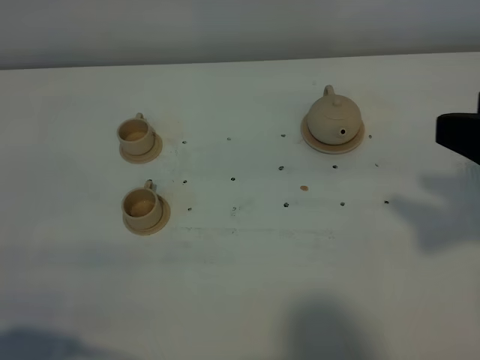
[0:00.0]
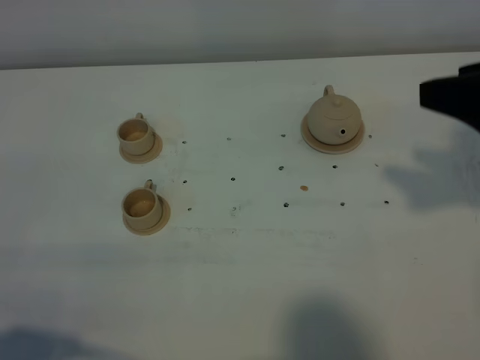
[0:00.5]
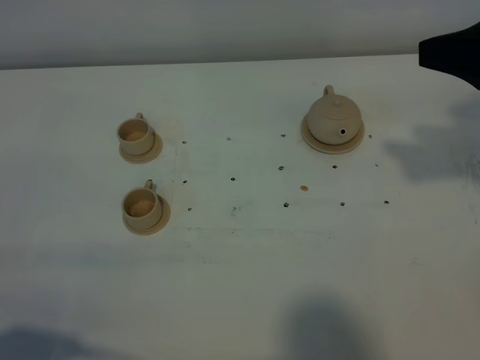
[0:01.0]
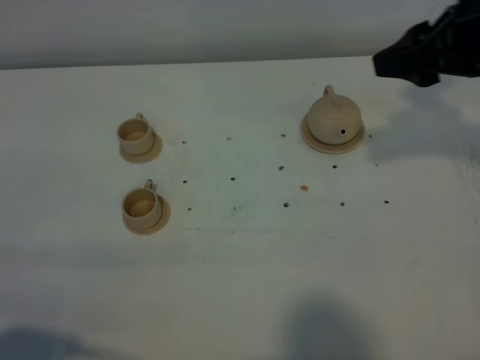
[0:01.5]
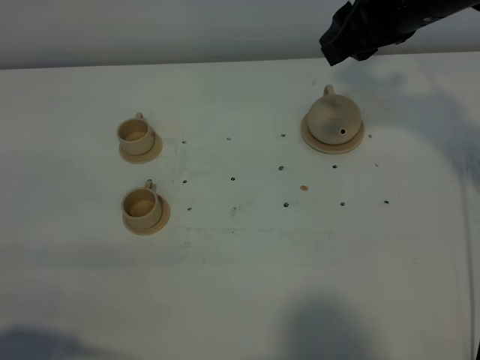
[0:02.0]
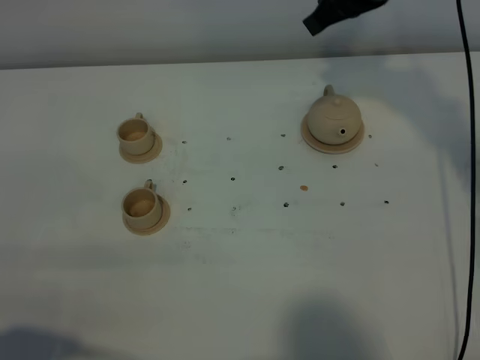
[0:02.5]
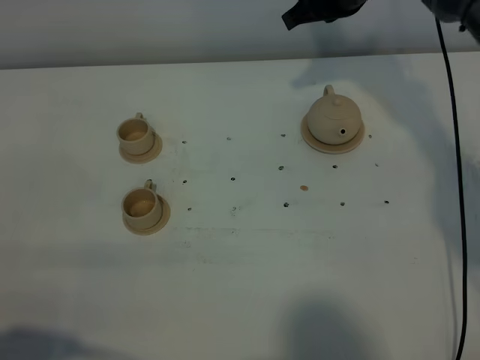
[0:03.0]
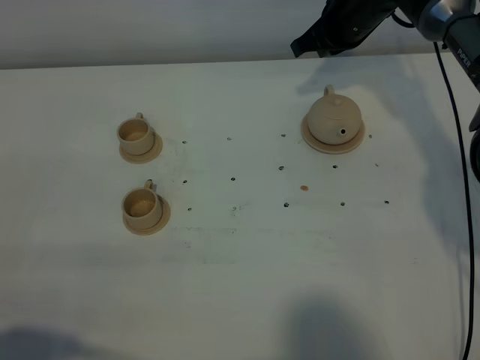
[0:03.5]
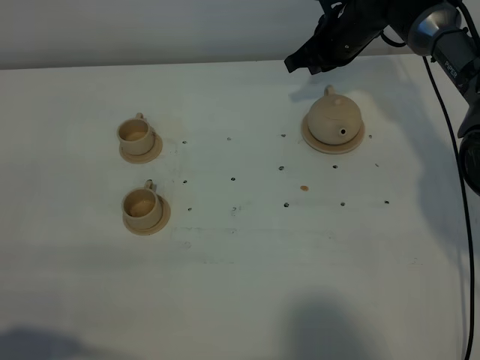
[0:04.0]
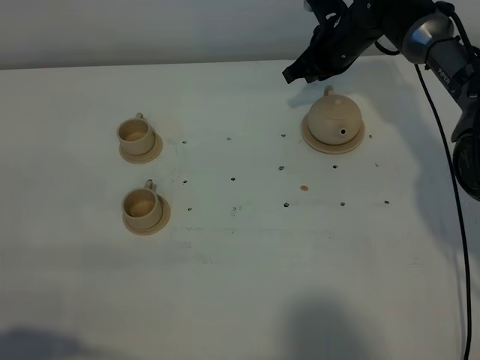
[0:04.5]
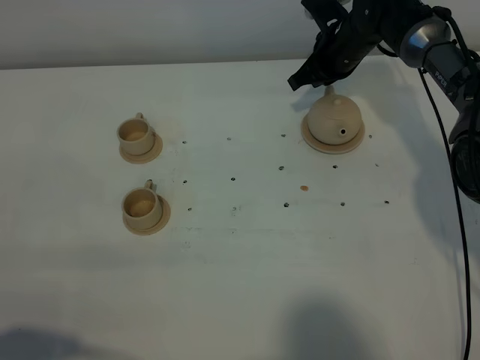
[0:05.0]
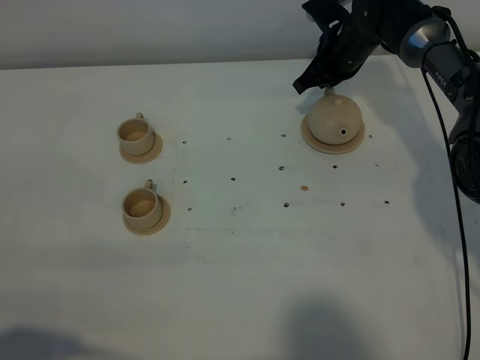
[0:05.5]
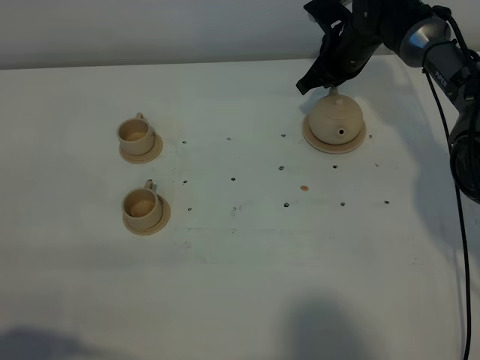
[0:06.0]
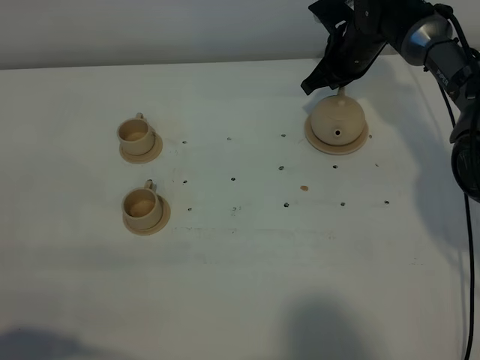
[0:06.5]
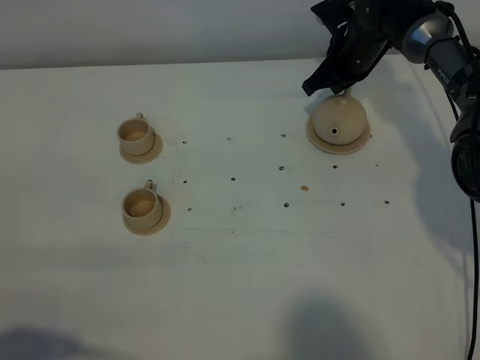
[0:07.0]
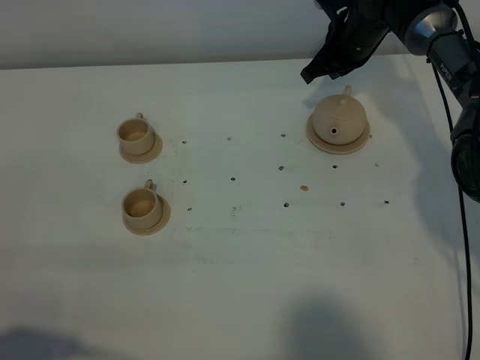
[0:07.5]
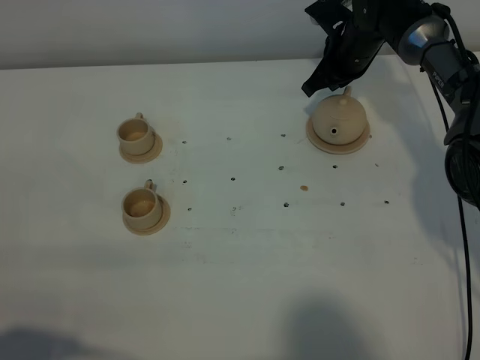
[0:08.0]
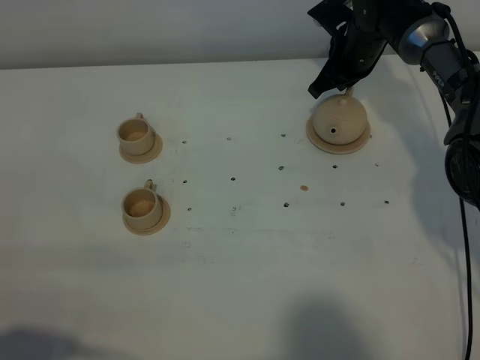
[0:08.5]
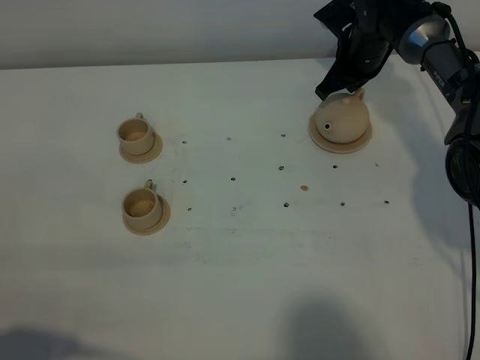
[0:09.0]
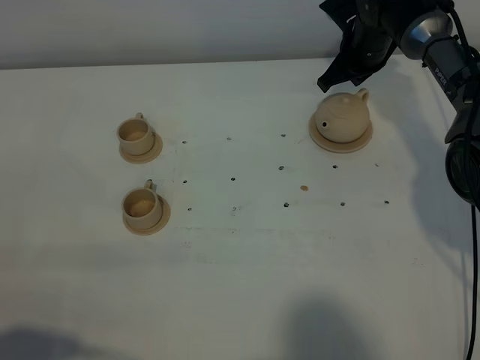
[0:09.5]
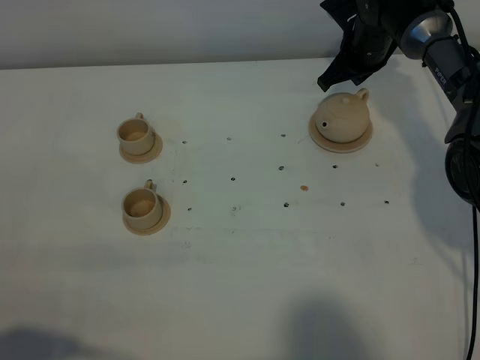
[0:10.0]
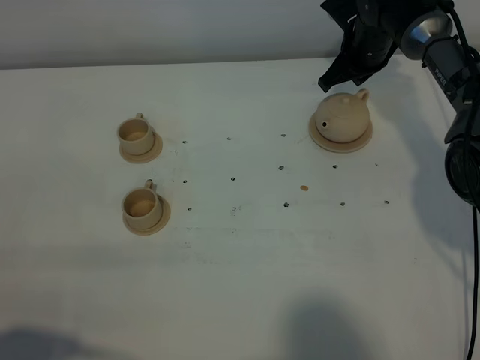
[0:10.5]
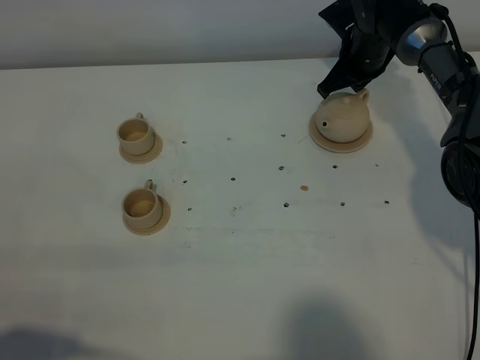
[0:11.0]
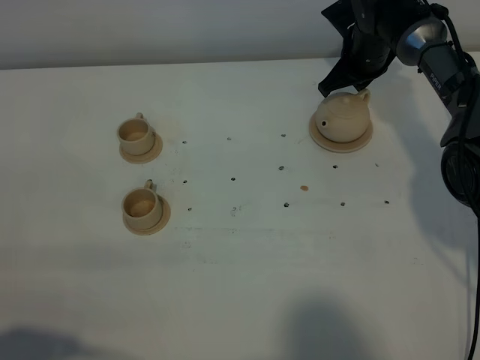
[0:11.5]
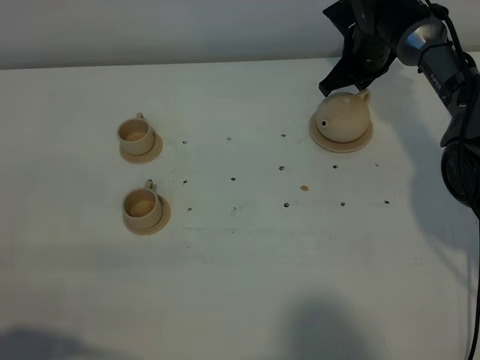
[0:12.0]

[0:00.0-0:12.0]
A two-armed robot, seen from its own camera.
Task of the whole recording: grasp the brown teapot and pour the tea into the two brown teacups one by one, put the brown teapot back in its original place.
0:00.0 to 0:02.0: The right gripper travels forward and to the left by approximately 20 cm.
0:02.0 to 0:04.0: The right gripper moves forward and downward, approximately 25 cm, and closes its fingers.
0:04.0 to 0:08.0: The grippers move only a little.
0:08.0 to 0:10.0: The grippers make only small movements.
0:10.0 to 0:12.0: The two grippers keep their place.

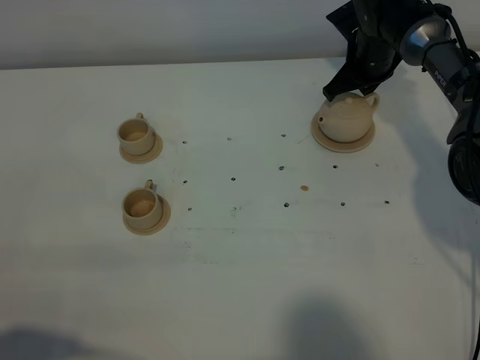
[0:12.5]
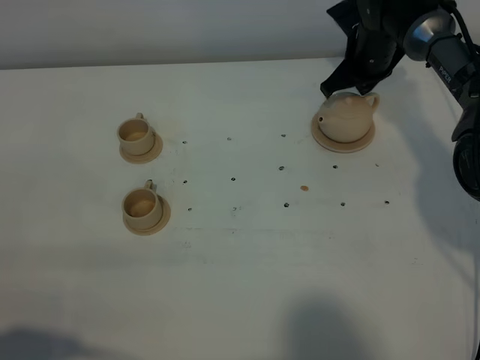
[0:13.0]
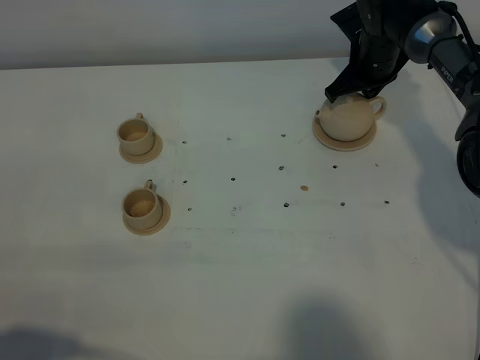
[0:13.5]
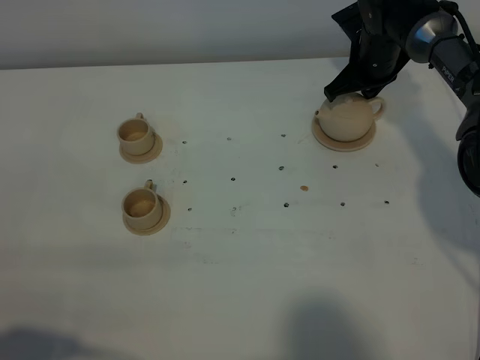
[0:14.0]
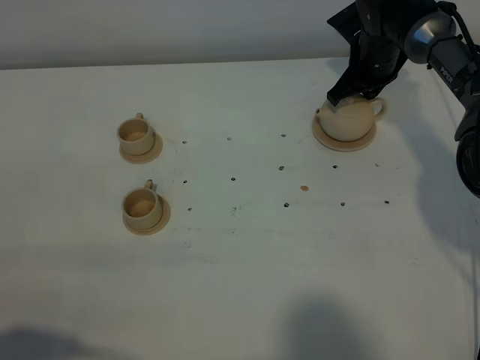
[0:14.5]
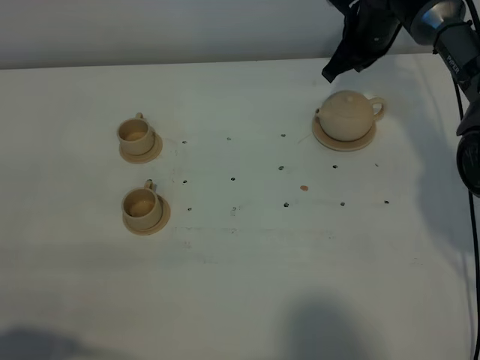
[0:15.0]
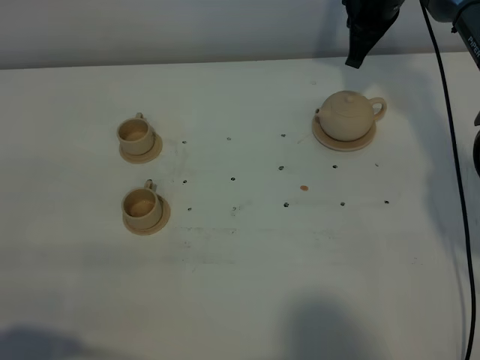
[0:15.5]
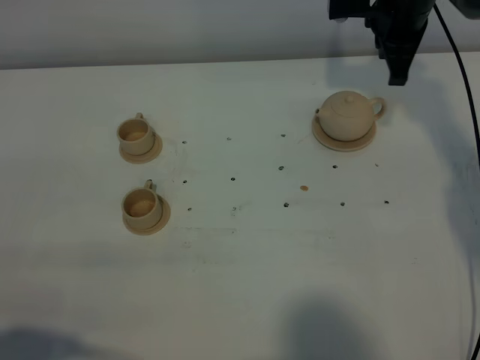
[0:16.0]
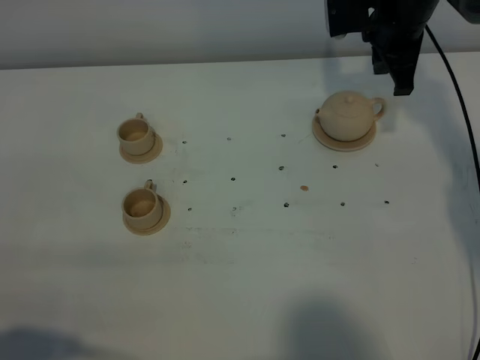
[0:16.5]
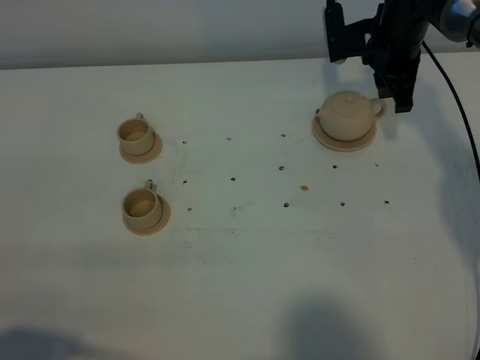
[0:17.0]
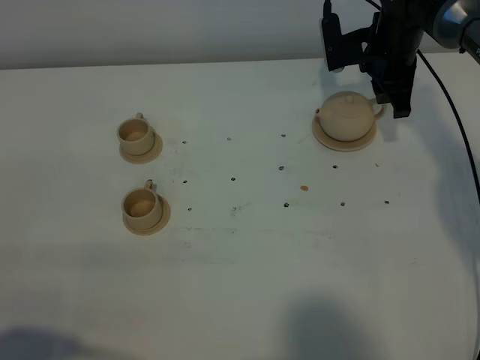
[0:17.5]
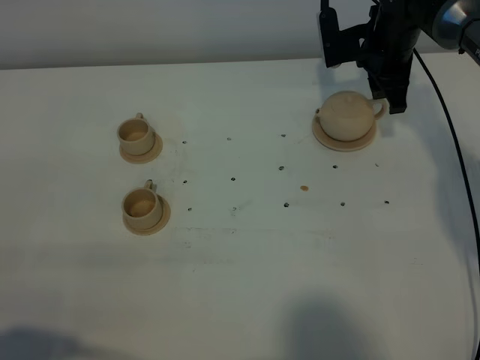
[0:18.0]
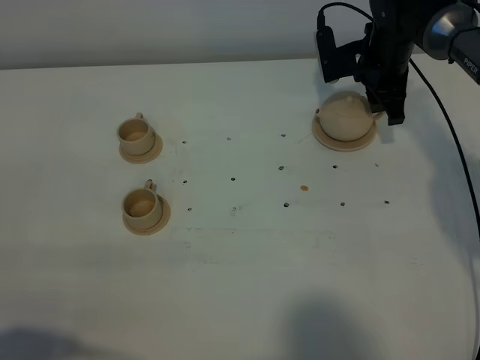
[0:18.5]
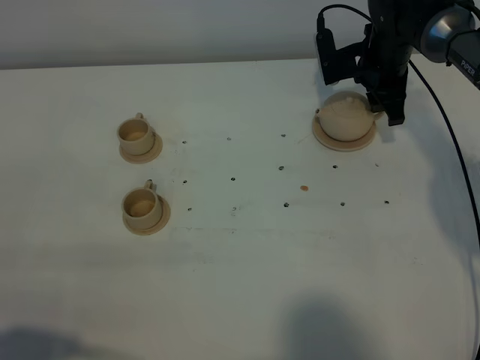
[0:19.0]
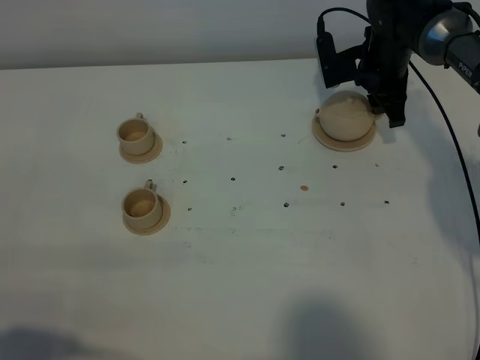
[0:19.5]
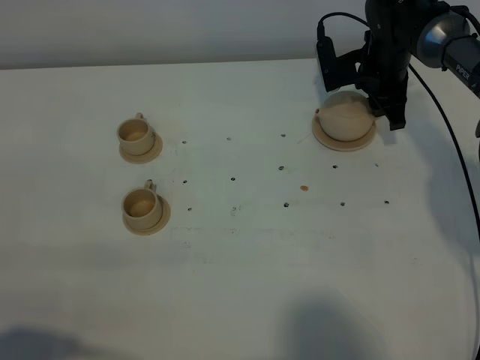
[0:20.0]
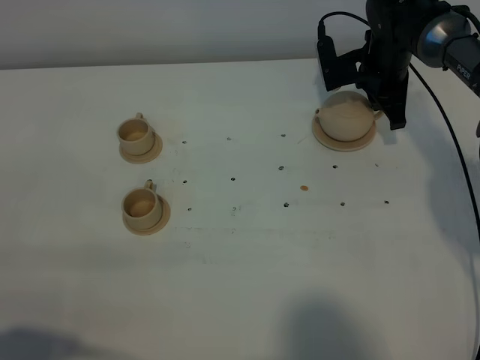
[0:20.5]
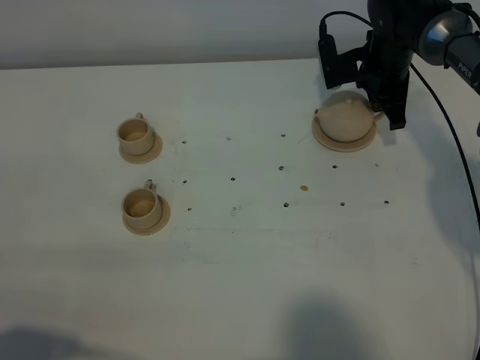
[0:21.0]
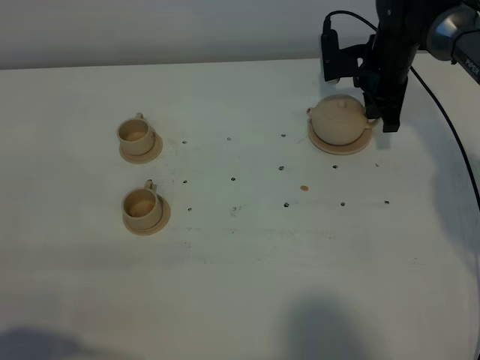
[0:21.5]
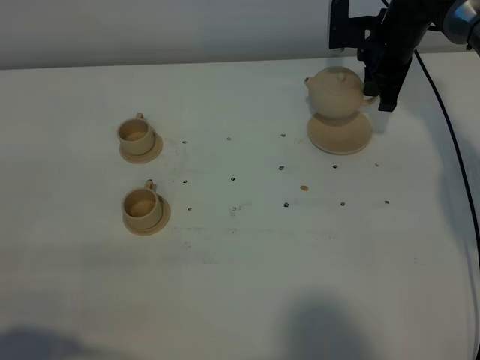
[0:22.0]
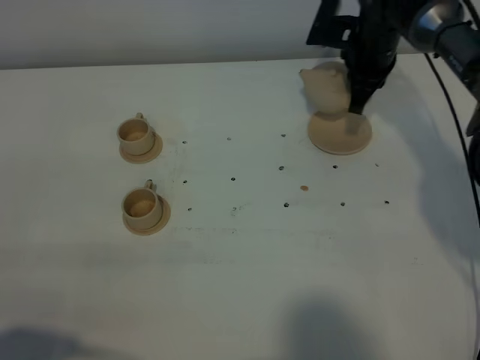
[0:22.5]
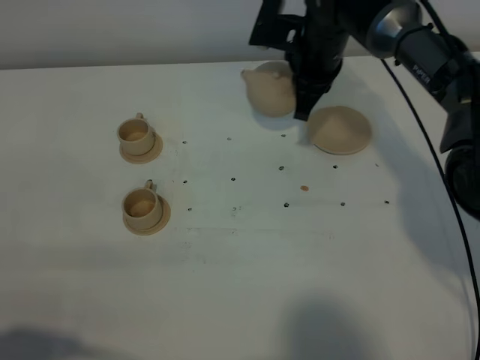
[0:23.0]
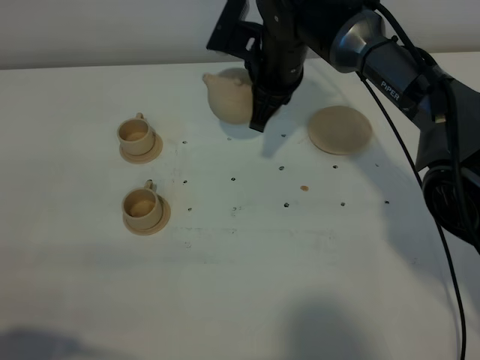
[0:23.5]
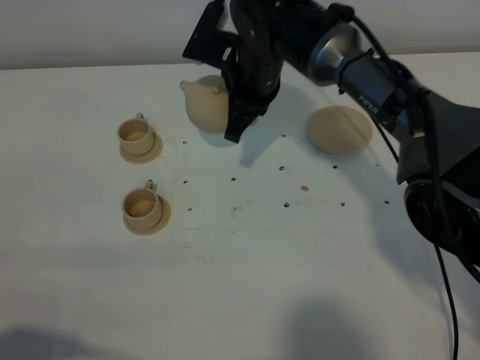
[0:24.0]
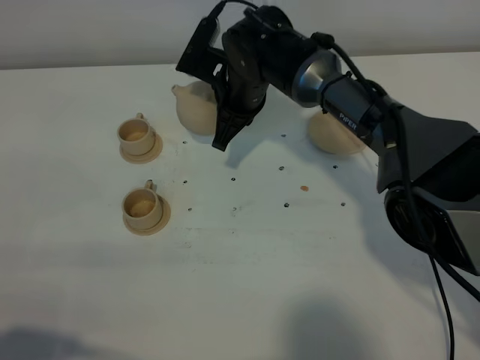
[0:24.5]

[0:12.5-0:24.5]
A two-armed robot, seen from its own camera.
Task of the whole recording: grasp the brown teapot and pour the tea into the two brown teacups one by one, put the brown teapot back in its original place.
Step, 0:12.5 to 0:21.5: Pick up the teapot with the right gripper.
0:12.5 to 0:14.5: Both grippers stay about where they are.
0:14.5 to 0:16.5: The right gripper moves upward, roughly 10 cm.
0:16.5 to 0:18.5: The right gripper heads downward, covering about 5 cm, and opens.
0:18.5 to 0:20.5: The right gripper closes its fingers.
0:22.5 to 0:24.5: The right gripper travels to the left by about 15 cm.

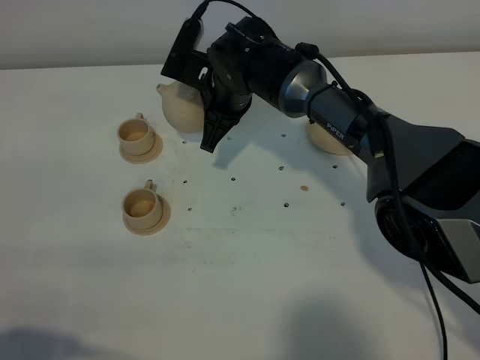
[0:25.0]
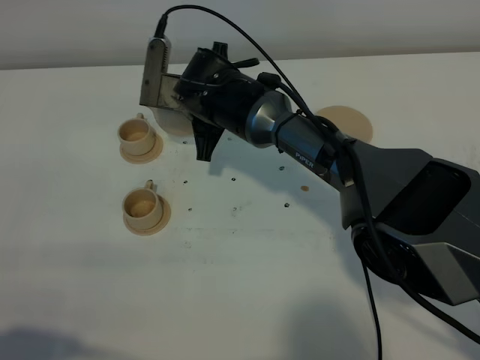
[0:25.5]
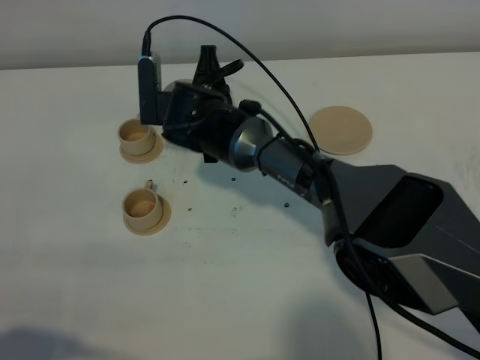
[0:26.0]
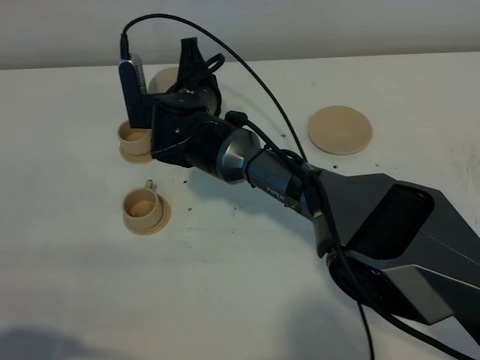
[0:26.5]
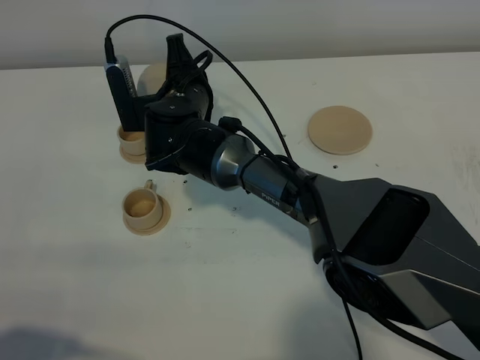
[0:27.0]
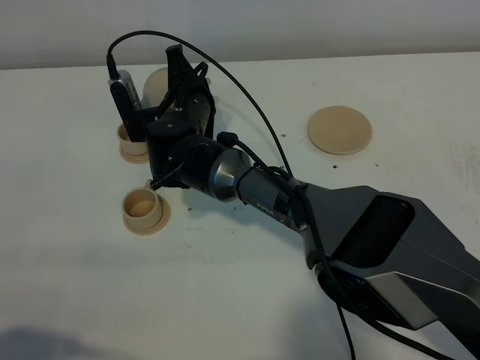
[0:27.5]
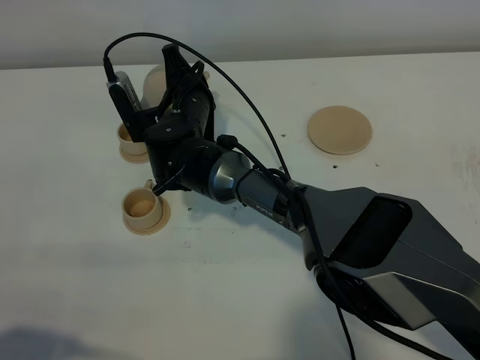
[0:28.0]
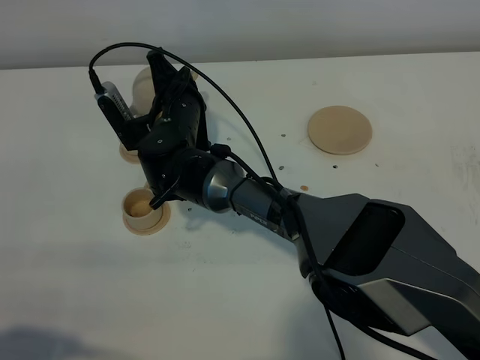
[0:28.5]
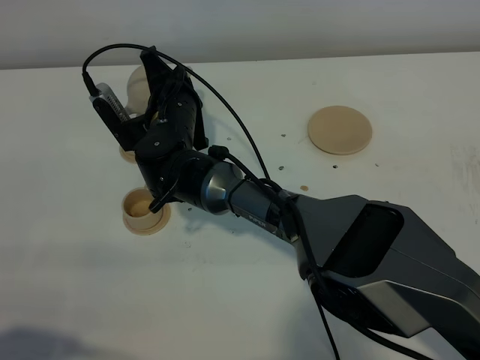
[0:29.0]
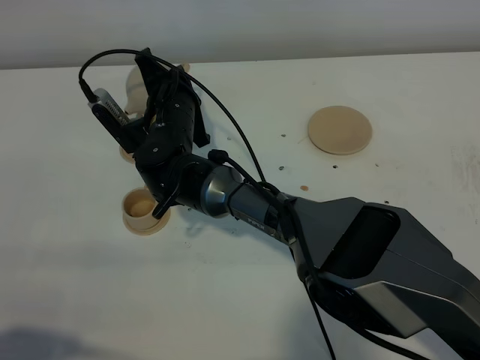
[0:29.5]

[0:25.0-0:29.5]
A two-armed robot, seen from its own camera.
Task of the whole recording: grasp the brown teapot and pour the tea into the two brown teacups one by one, put the brown teapot back in its original place.
0:25.0 to 0:27.0: The right gripper goes roughly 5 cm to the left.
